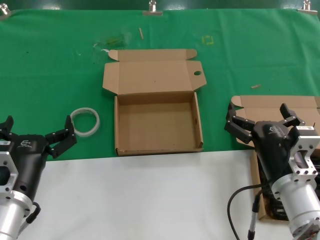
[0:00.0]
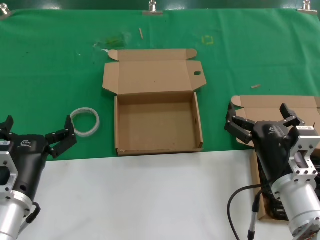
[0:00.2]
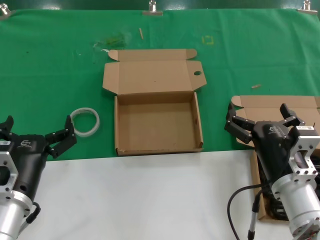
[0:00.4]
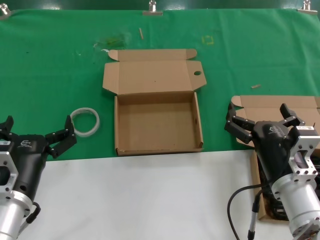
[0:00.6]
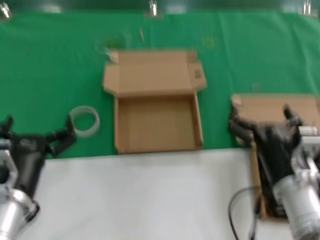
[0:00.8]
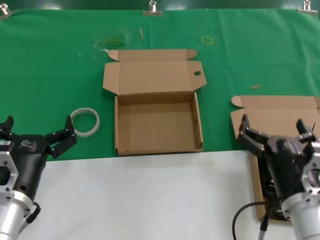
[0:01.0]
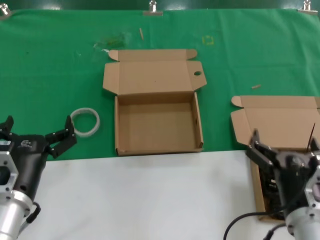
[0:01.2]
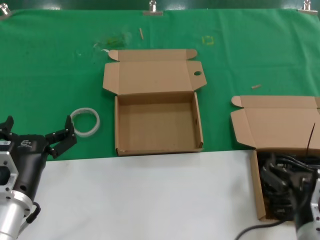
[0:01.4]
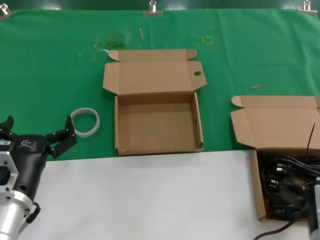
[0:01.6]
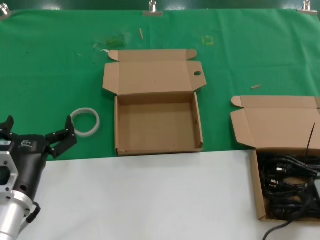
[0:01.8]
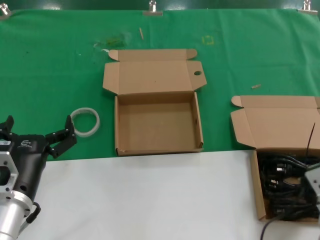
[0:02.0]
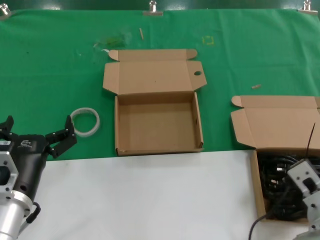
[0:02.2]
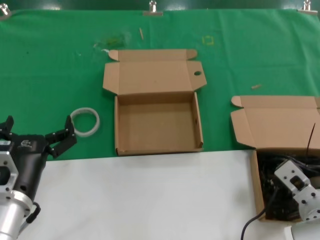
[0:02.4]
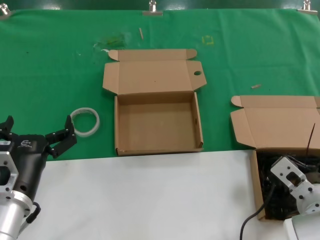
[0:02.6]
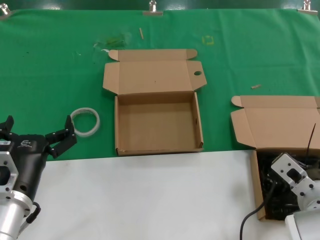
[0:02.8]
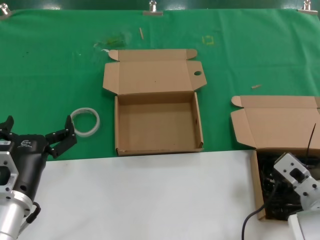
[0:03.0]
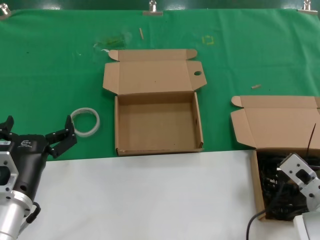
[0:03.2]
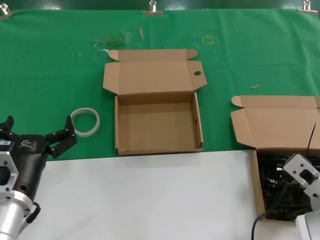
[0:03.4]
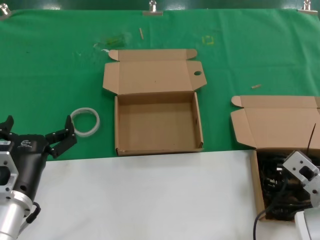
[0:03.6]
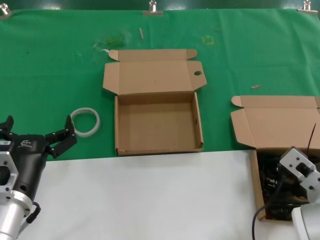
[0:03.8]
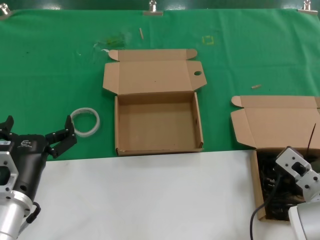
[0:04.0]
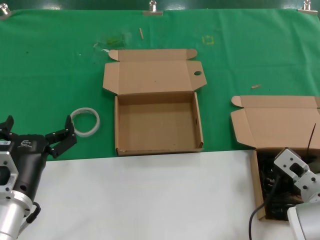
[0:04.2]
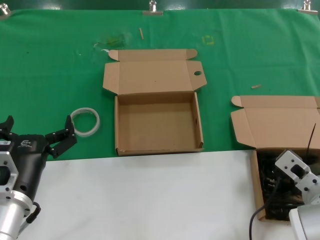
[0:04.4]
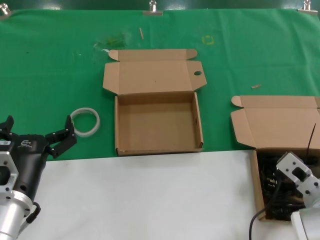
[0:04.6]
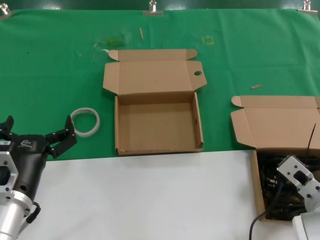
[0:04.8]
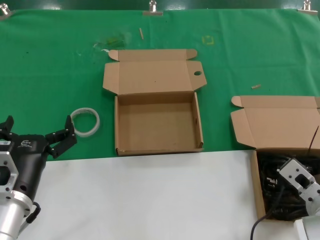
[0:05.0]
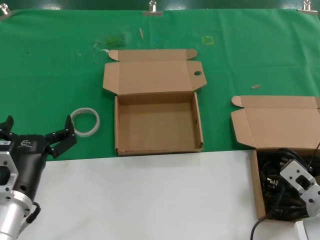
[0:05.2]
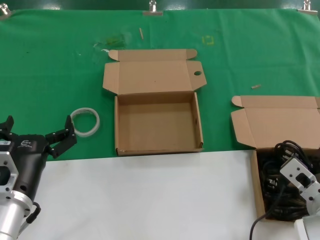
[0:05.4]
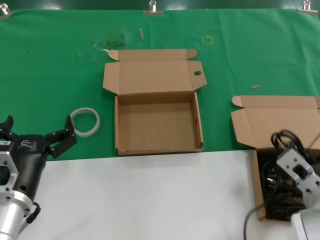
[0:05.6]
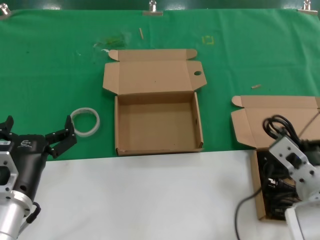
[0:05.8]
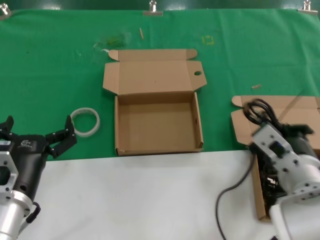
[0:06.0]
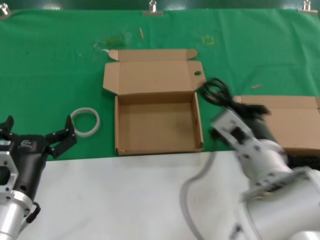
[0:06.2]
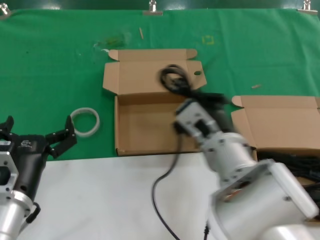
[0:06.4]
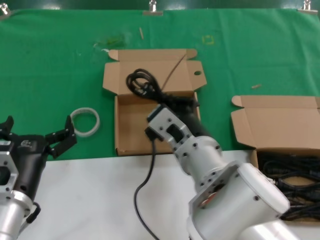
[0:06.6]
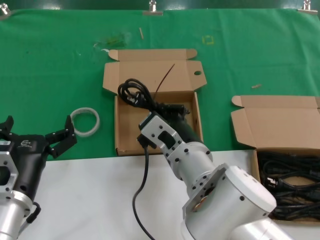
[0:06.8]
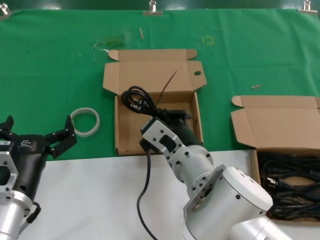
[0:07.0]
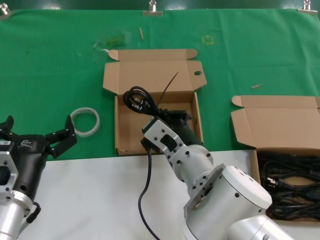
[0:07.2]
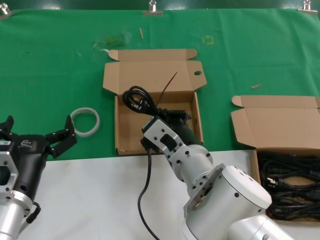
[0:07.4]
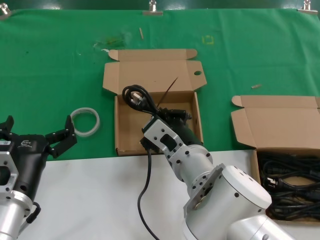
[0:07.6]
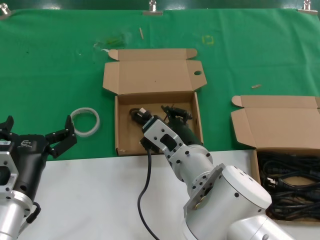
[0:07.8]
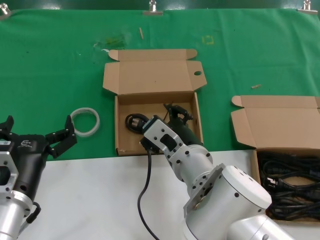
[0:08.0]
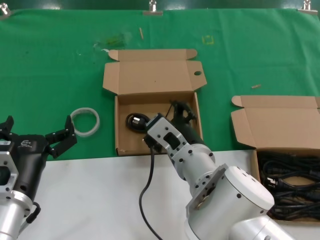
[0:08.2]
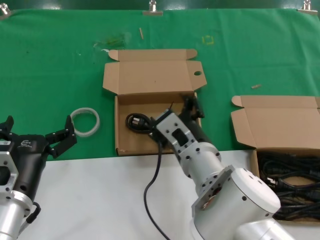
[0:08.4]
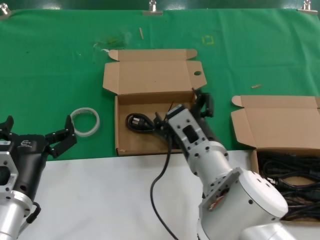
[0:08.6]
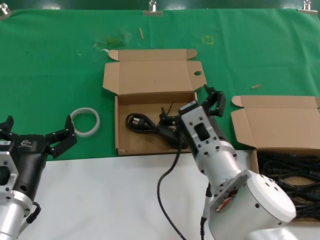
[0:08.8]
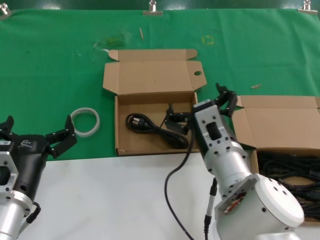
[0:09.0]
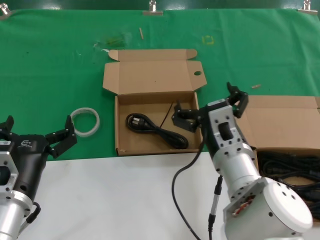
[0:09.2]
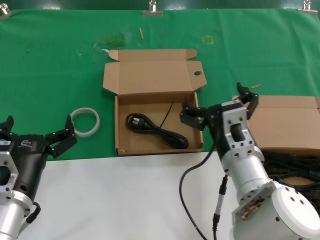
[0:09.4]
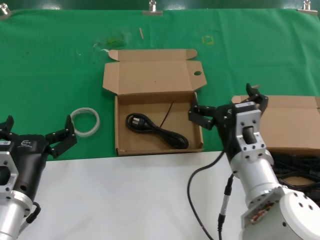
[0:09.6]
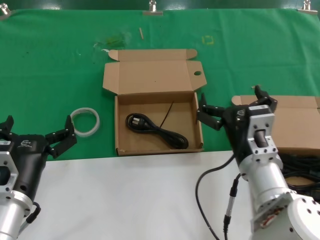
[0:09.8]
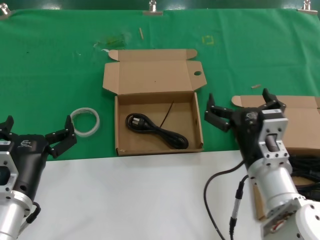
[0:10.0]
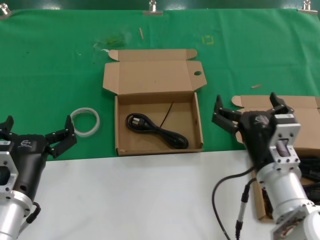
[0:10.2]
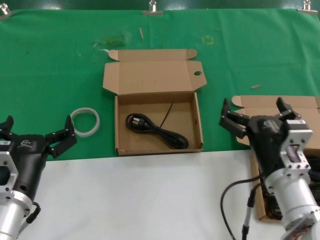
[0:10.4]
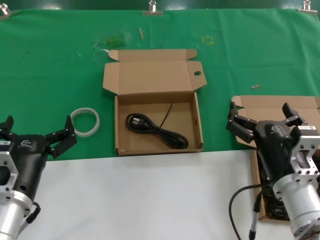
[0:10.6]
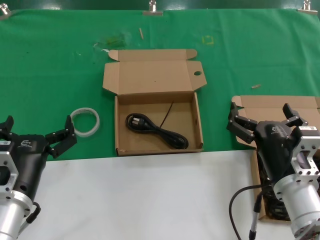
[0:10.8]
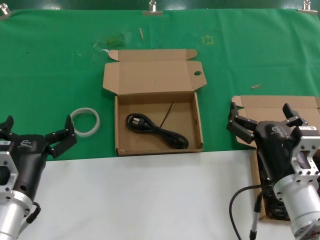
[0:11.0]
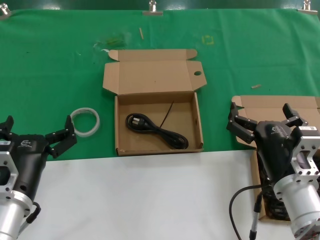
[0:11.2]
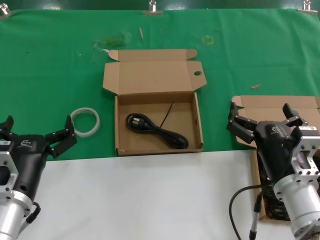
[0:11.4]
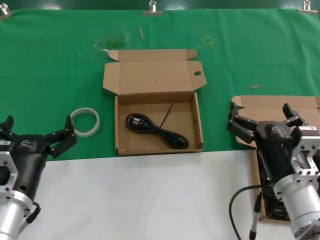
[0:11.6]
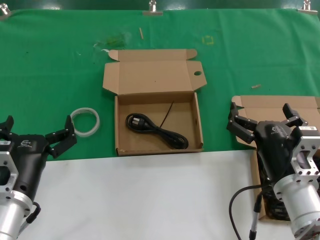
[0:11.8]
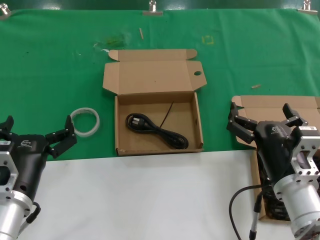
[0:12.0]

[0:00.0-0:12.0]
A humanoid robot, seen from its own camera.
Task of the whole recording: take the parts from the box containing them and put them into an empty box.
Step, 0:00.0 to 0:05.0: Grasp the data cable.
Step, 0:05.2 to 0:07.8: Place the data cable in the another box.
0:00.0 to 0:01.6: The right hand heads backward, covering about 10 cm.
0:01.6 to 0:03.0: The right hand shifts about 10 cm forward.
0:03.0 to 0:04.4: The hands make only small movements.
0:04.4 to 0:06.0: The right hand shifts about 10 cm upward and to the left.
0:06.0 to 0:07.6: The right hand goes roughly 15 cm to the left.
0:09.0 to 0:10.4: The right hand shifts some 10 cm to the right.
0:10.4 to 0:12.0: The hands stay close to where they were, moving slightly.

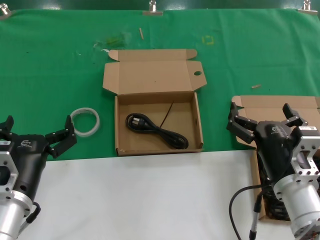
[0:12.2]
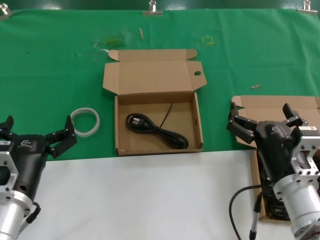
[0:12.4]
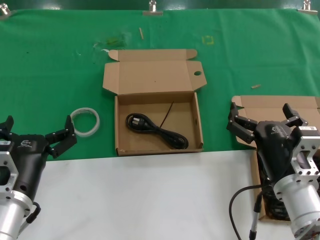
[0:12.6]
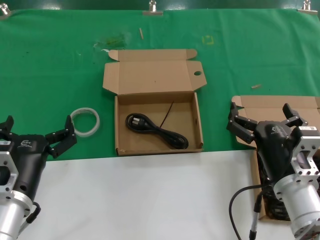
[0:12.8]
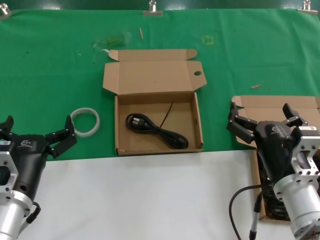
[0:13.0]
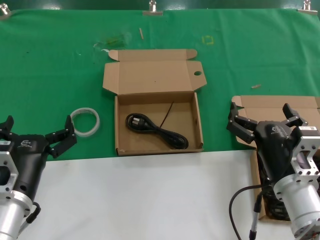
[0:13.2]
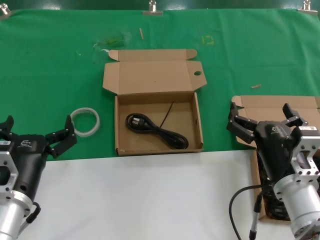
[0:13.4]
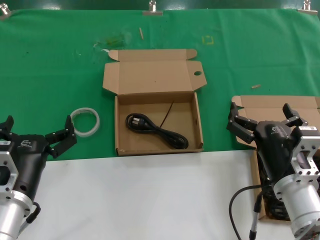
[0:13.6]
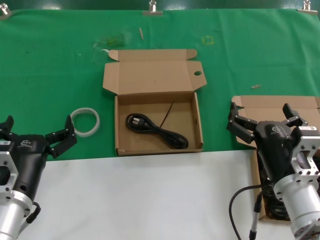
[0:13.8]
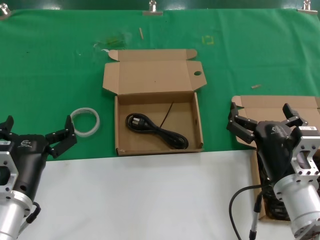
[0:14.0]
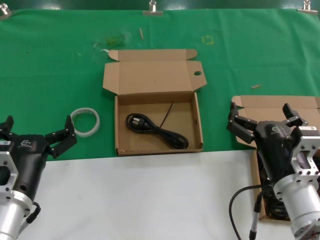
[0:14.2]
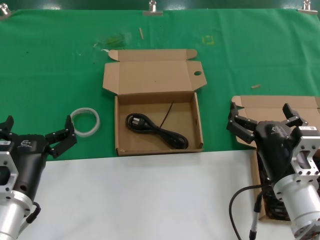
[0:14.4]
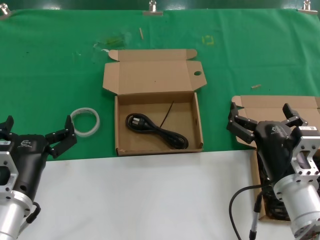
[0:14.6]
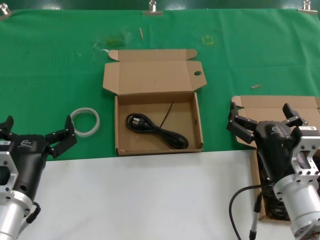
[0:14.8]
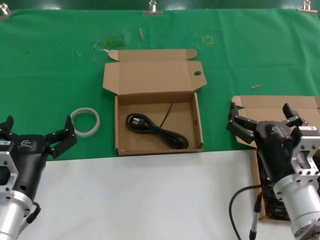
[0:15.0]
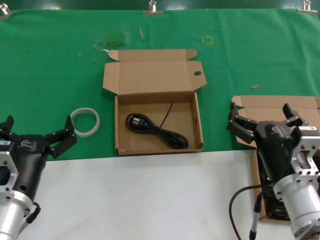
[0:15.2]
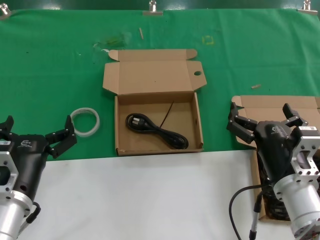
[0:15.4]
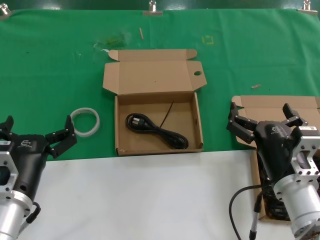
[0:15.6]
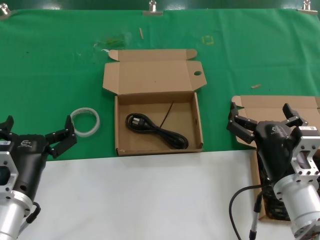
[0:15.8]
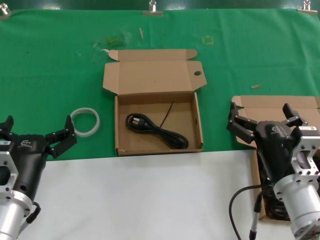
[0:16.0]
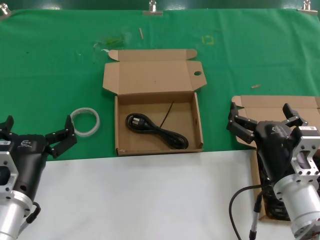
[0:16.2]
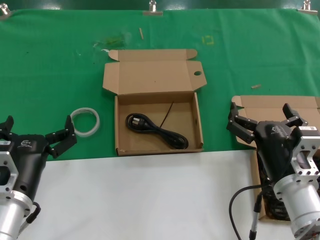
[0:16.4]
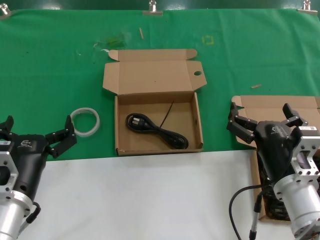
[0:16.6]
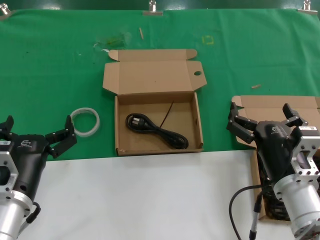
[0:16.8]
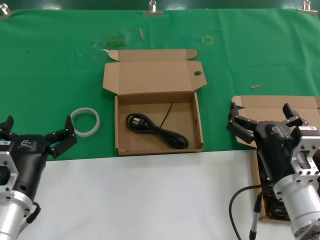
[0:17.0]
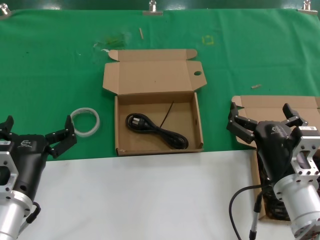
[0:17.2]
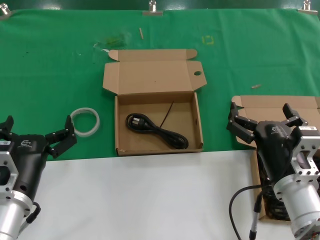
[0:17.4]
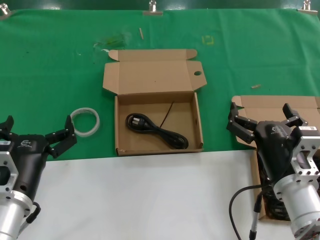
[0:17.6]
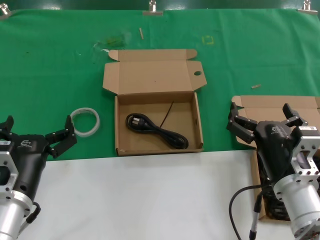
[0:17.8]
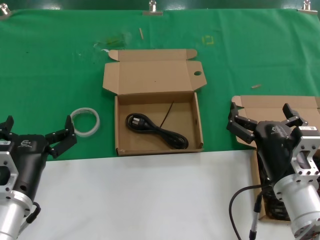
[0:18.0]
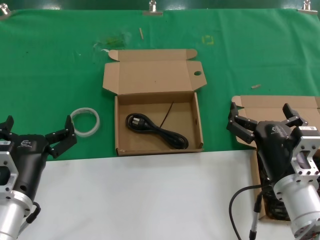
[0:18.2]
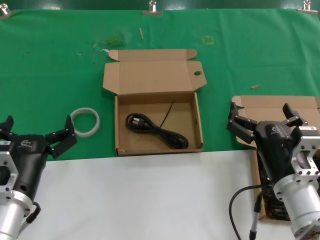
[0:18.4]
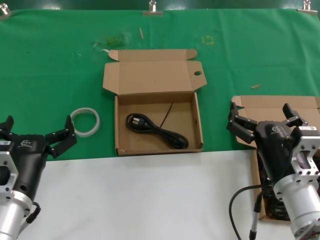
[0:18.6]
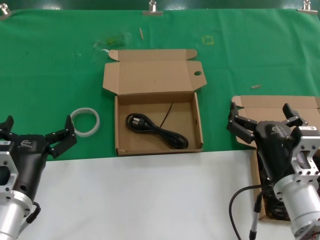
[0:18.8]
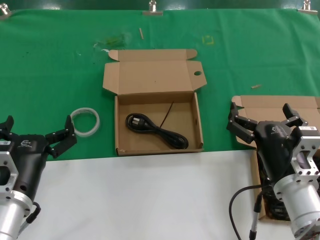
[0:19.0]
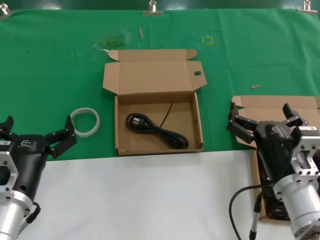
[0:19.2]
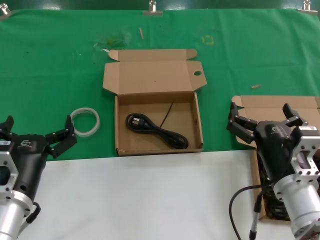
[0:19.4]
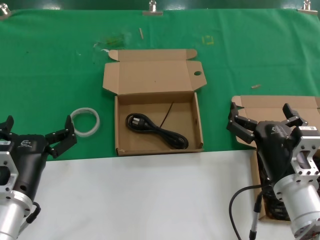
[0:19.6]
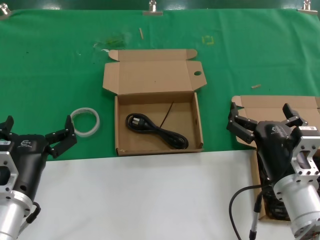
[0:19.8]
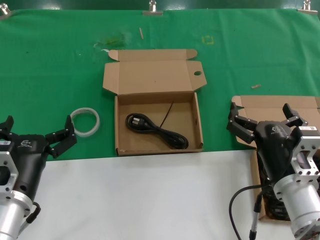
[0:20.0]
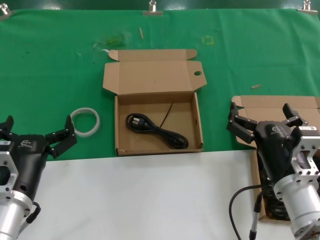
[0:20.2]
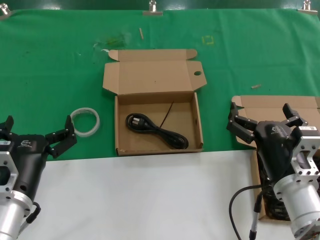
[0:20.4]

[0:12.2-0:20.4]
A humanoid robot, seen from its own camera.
Task of the whole recording: take the parts from the box containing them and put them into an empty box.
0:12.2 to 0:20.4: The two hands keep their place.

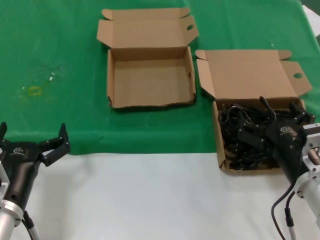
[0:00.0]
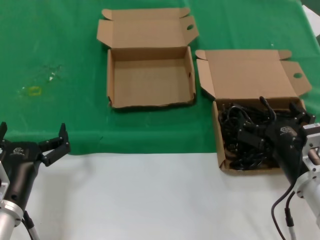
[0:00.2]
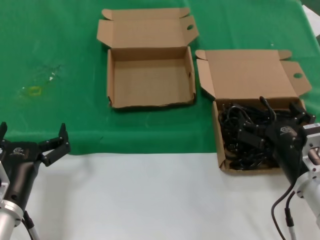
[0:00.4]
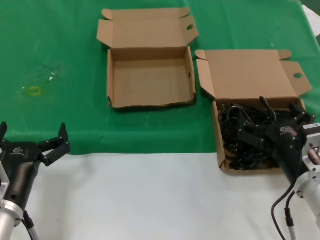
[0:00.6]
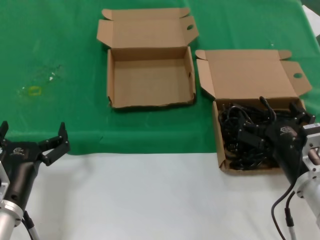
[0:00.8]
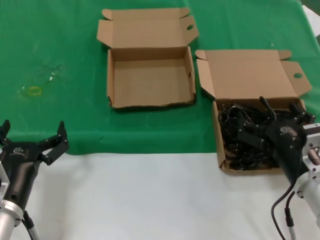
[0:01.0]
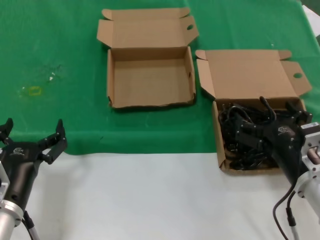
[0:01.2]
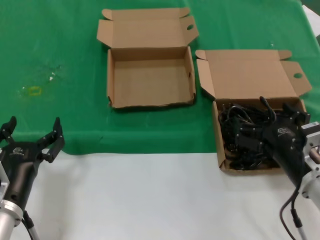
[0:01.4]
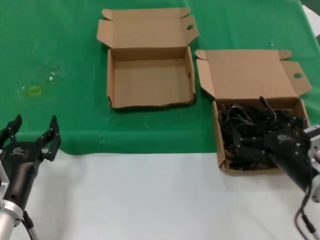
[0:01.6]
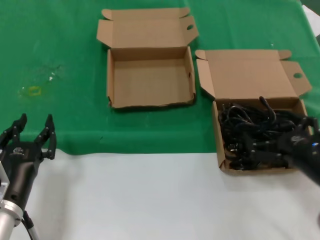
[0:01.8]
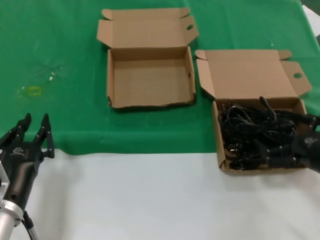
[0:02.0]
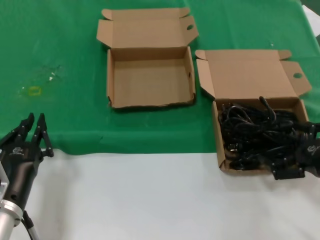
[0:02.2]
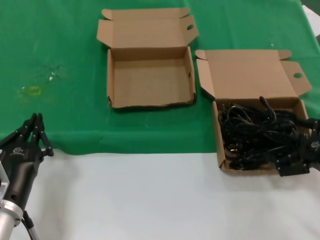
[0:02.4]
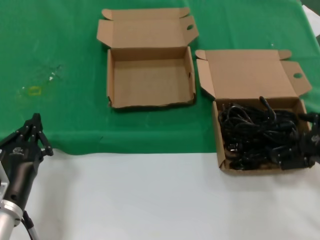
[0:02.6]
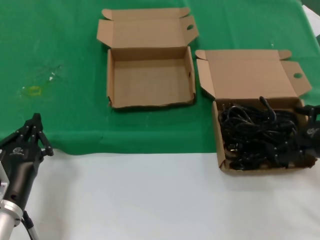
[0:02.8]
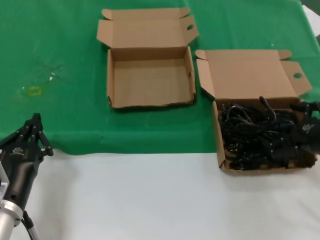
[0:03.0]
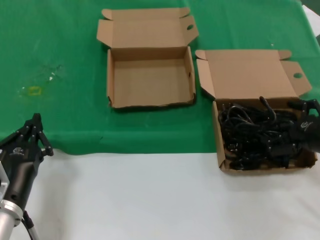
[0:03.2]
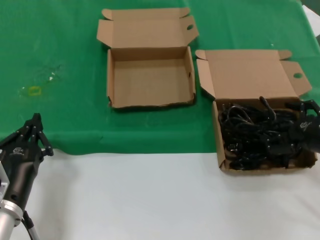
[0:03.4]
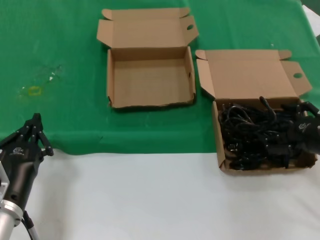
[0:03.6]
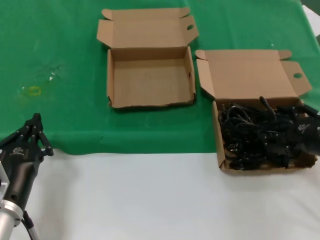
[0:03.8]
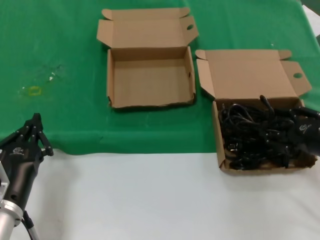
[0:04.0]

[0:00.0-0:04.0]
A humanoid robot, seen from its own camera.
Task of the whole recording: take the parts from the box containing them and put them into an empty box.
0:00.0 to 0:01.4: The hands make only small movements.
0:01.4 to 0:02.6: The right hand shifts some 15 cm to the right.
0:02.6 to 0:04.0: There are only small adjustments of the hands.
